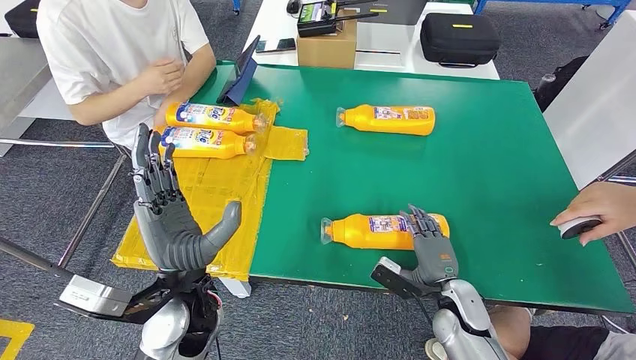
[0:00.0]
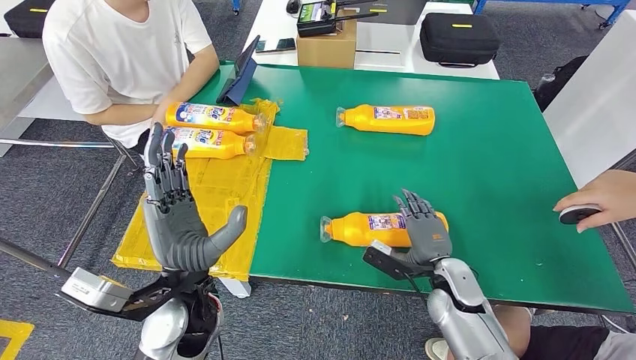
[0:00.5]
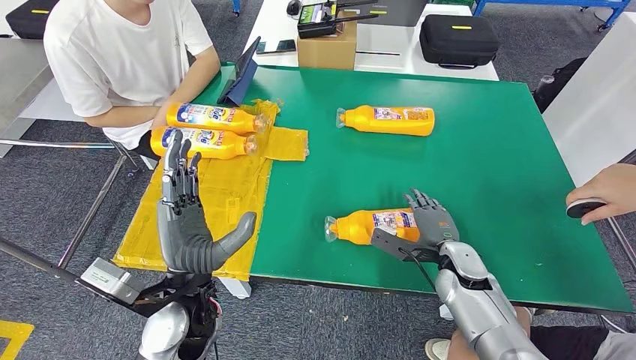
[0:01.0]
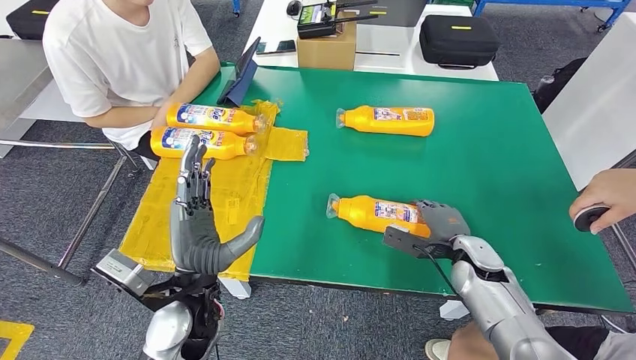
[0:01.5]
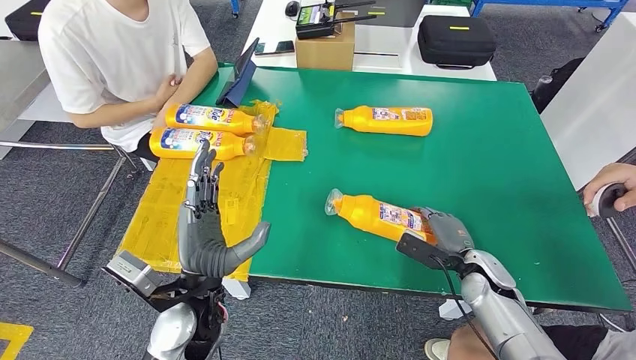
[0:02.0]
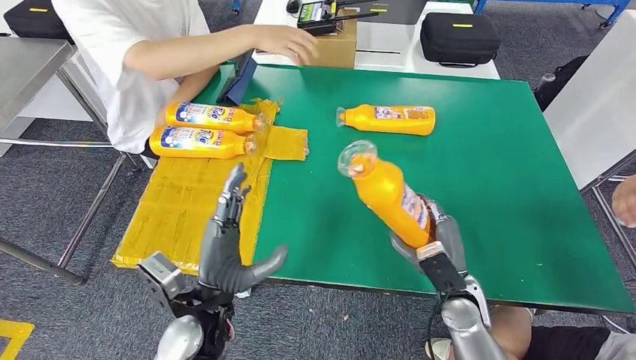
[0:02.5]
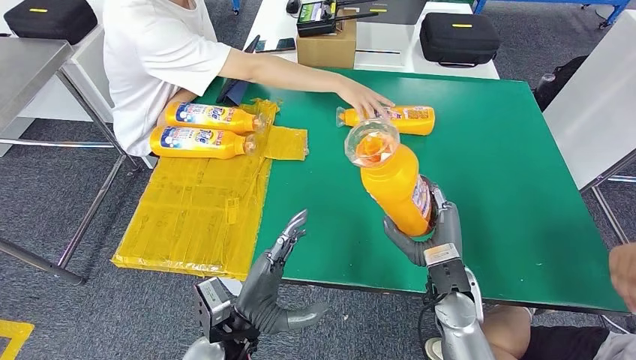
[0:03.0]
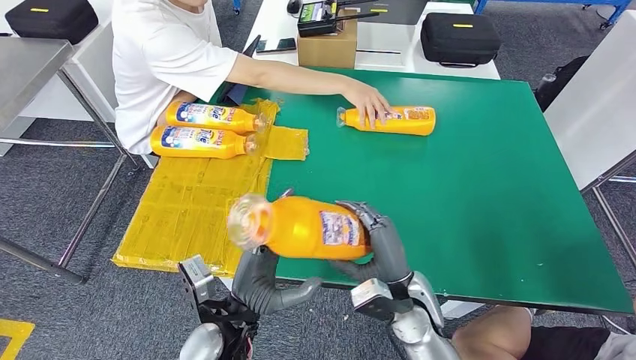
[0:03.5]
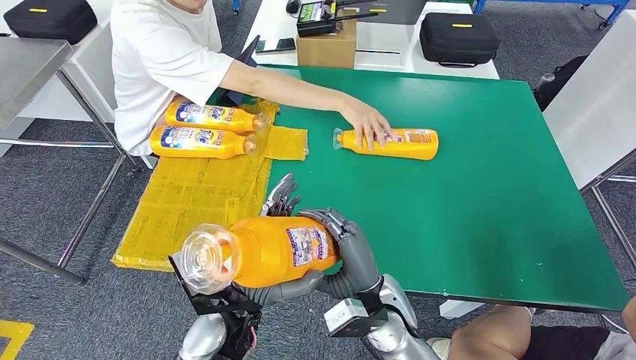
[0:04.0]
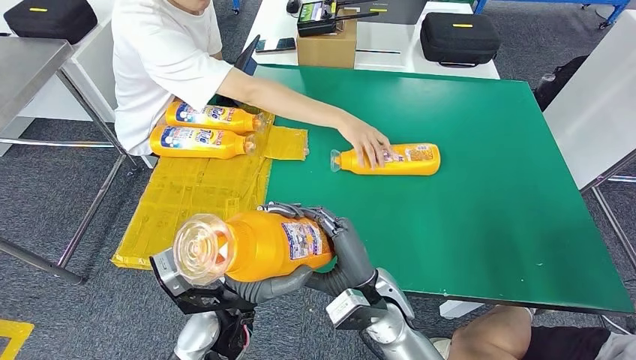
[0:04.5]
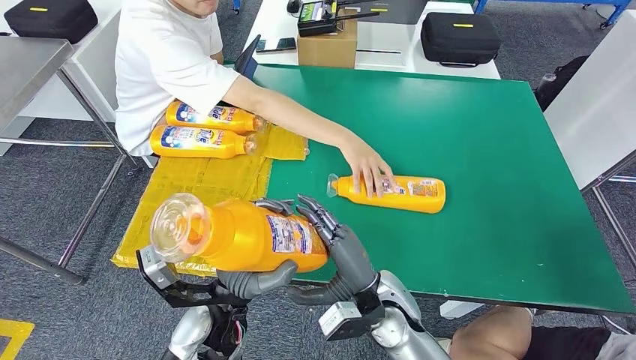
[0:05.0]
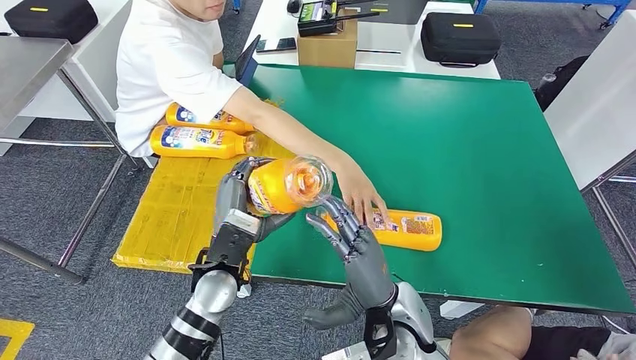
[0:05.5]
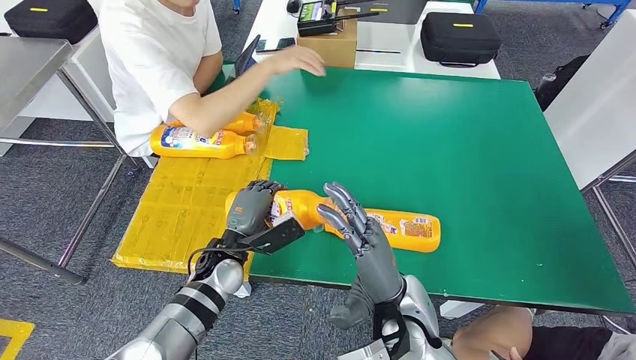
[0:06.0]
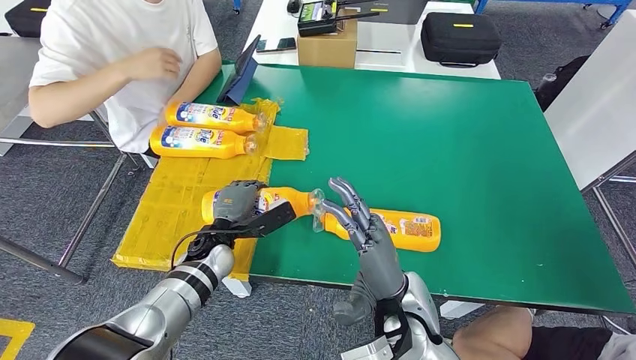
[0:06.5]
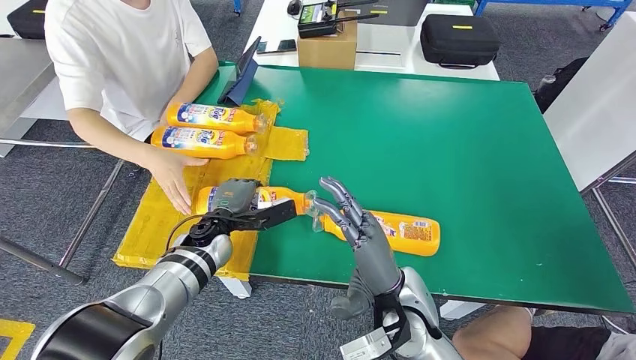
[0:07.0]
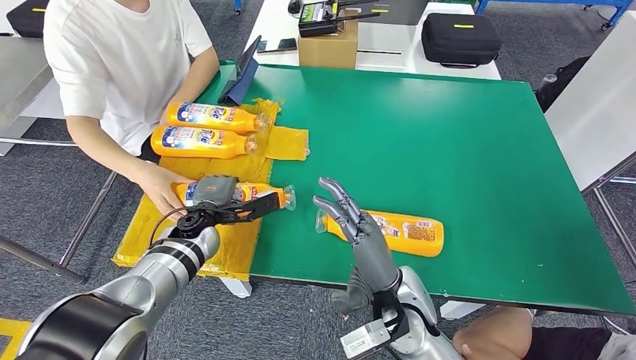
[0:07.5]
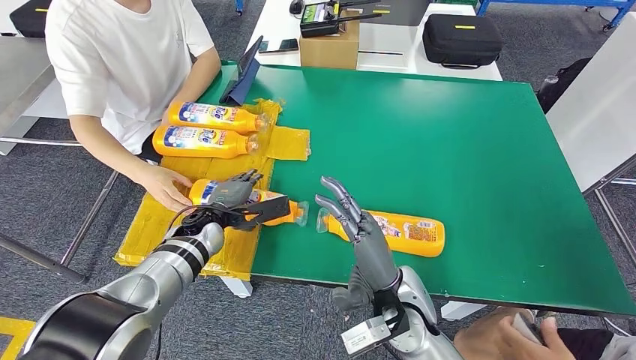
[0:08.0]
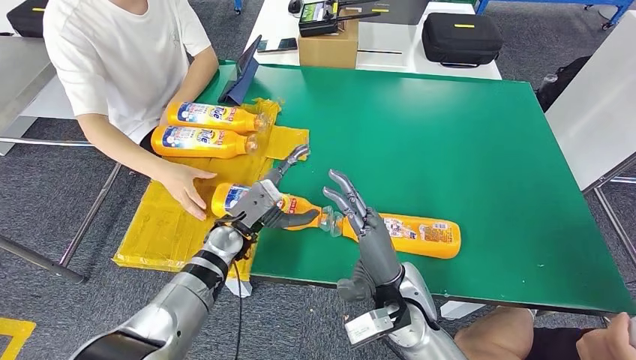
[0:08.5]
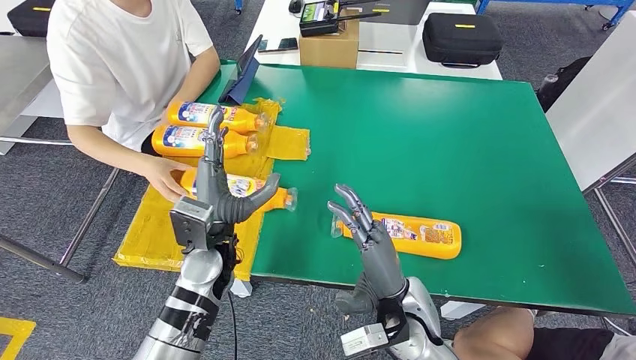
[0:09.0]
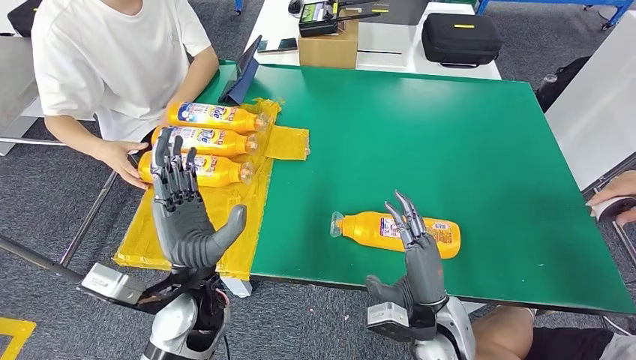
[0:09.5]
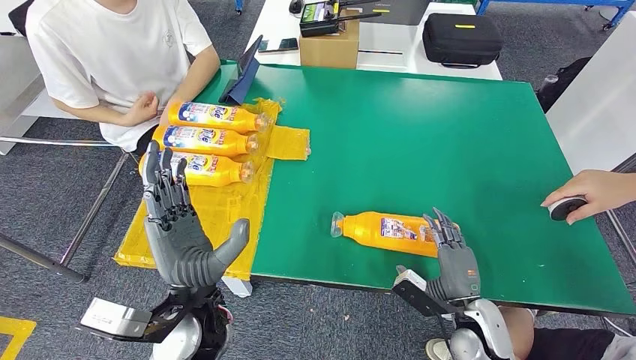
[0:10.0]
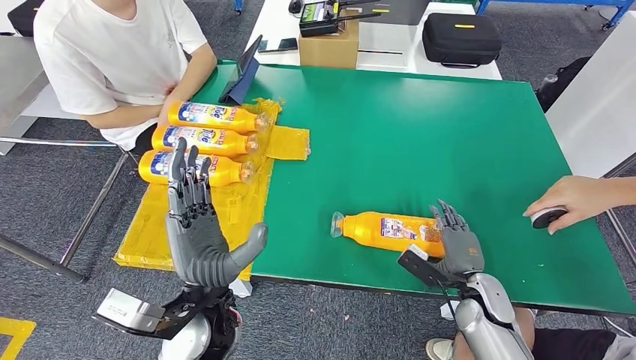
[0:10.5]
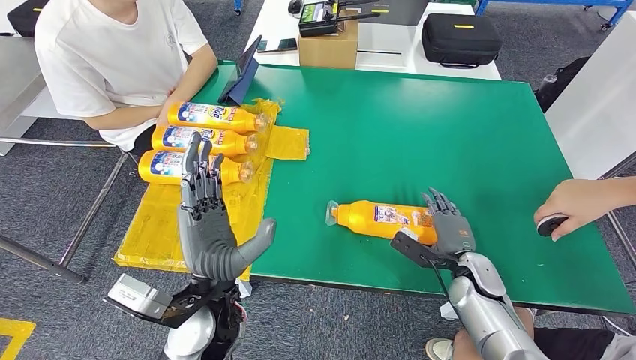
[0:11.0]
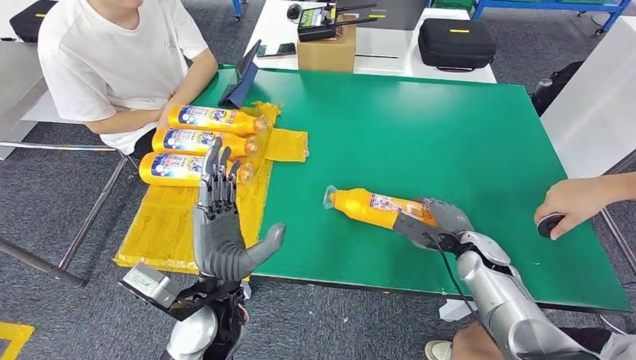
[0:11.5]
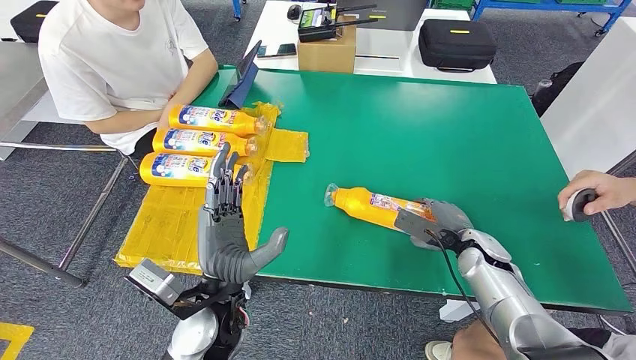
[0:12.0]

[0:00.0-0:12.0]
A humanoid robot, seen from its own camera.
Step, 0:00.0 to 0:03.0: Pick up the bottle from the table.
Step, 0:03.5 to 0:07.5: Flip the bottle to face forward.

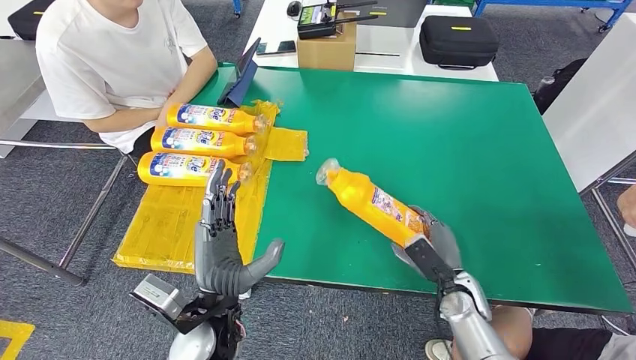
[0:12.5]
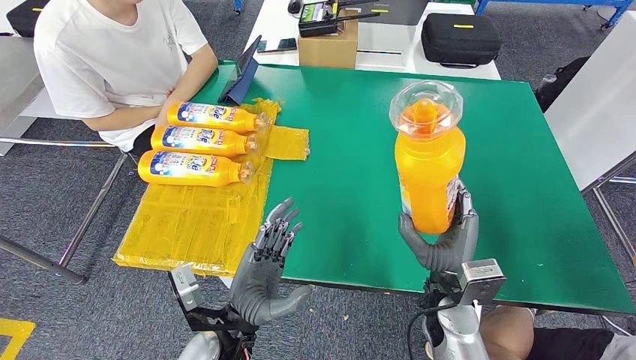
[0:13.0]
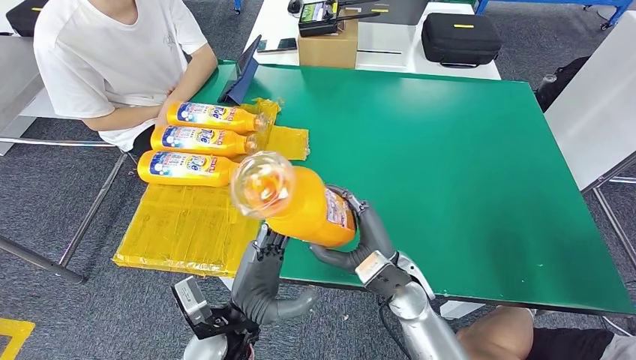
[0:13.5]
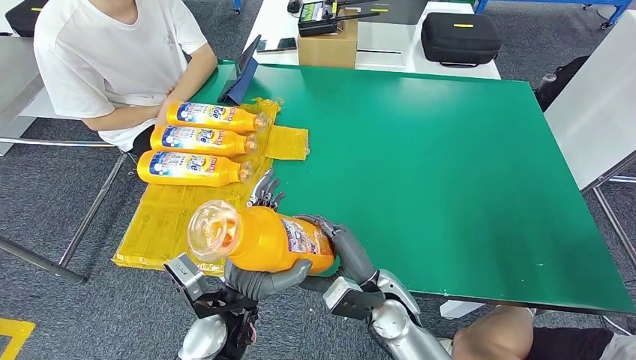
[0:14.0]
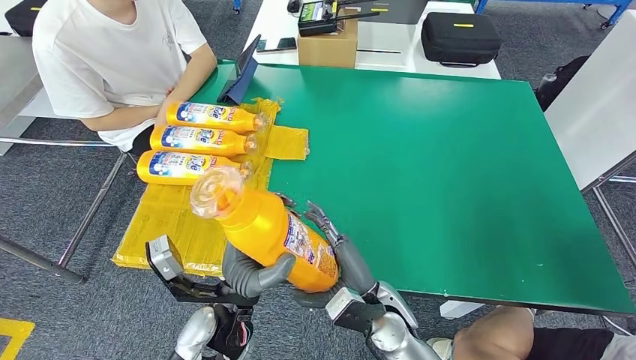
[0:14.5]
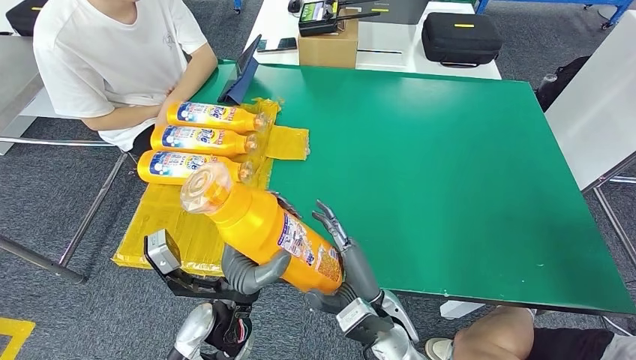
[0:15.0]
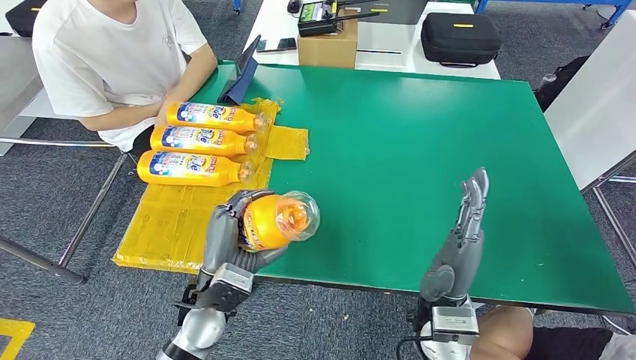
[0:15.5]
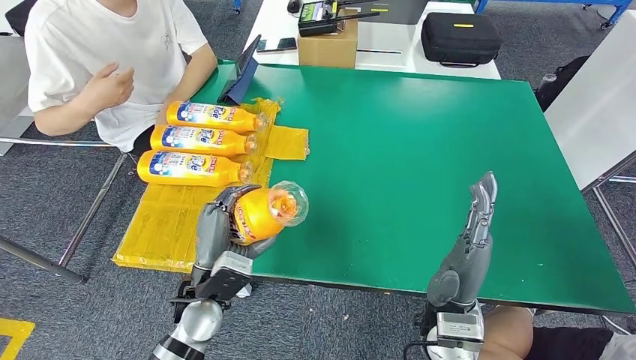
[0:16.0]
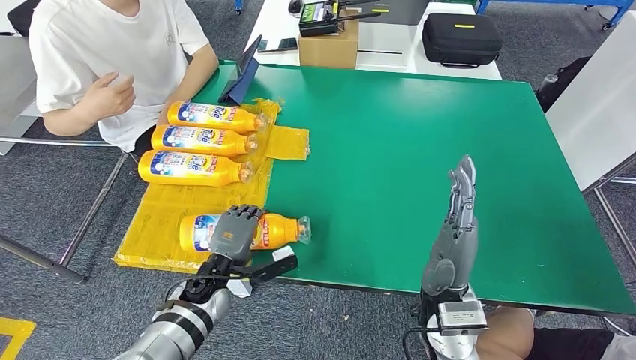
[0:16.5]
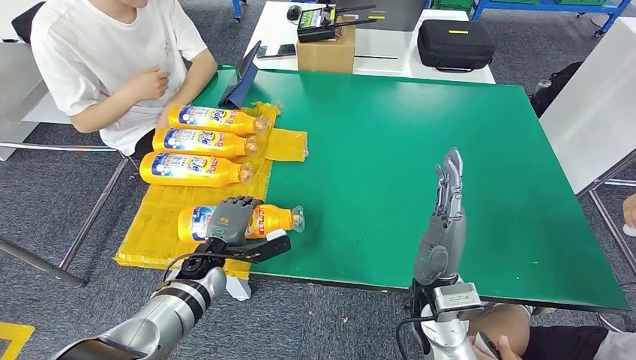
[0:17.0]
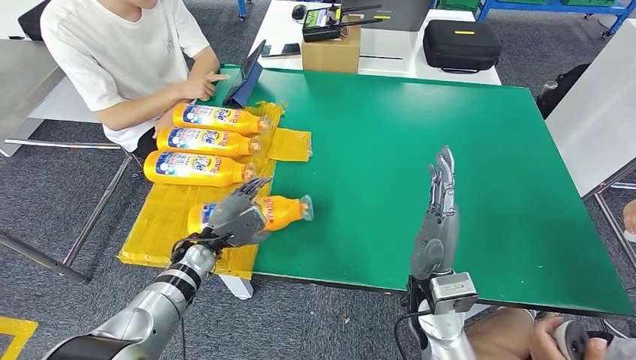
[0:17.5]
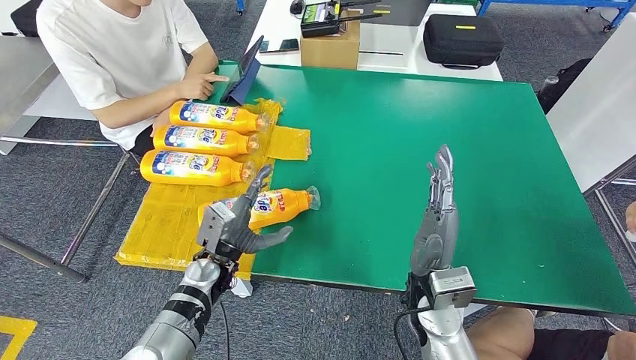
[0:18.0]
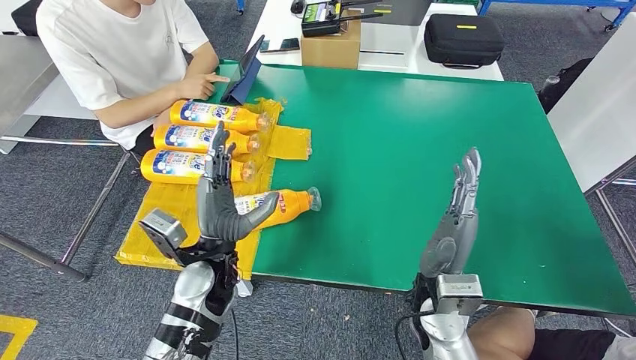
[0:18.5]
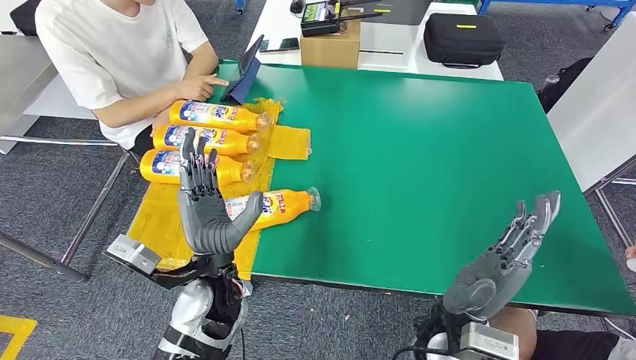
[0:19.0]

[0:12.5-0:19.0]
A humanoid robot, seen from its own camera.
Step, 0:14.5 to 0:18.5: Flip the bottle to face forward.

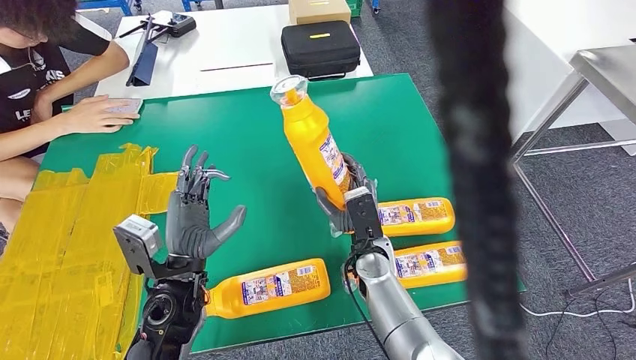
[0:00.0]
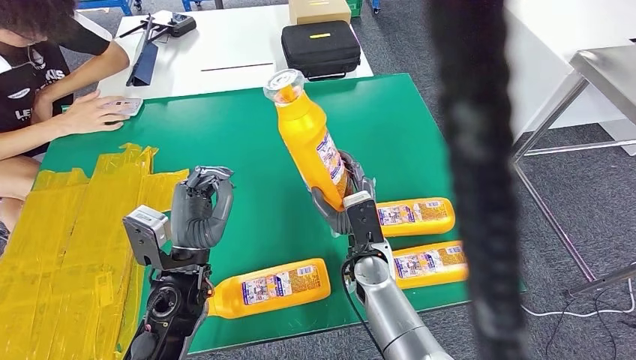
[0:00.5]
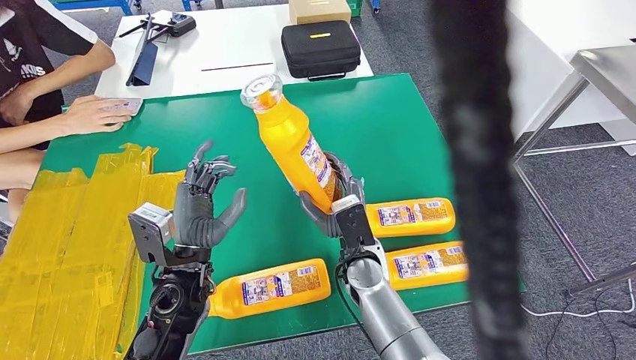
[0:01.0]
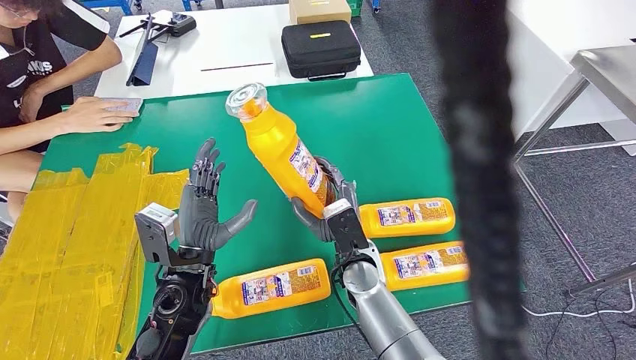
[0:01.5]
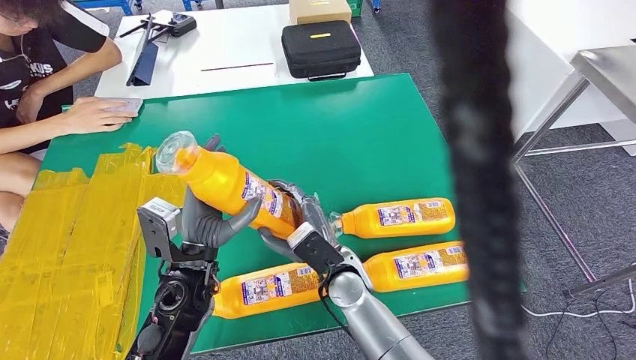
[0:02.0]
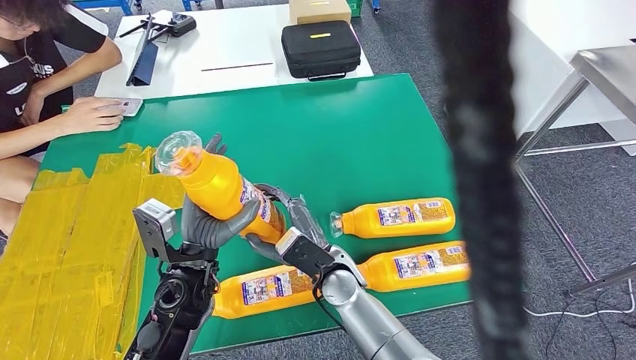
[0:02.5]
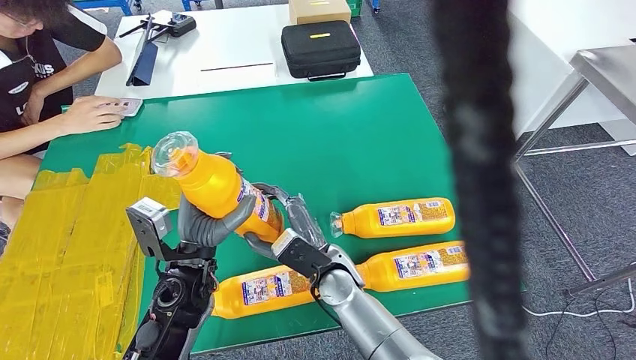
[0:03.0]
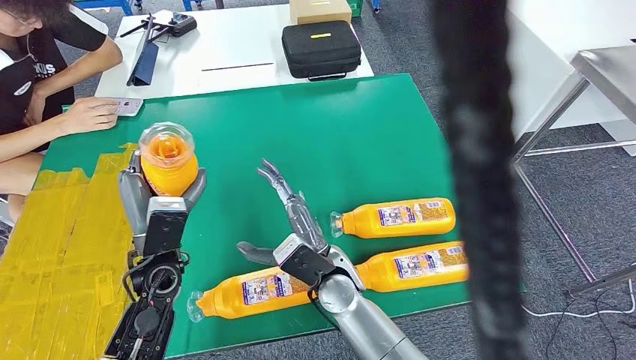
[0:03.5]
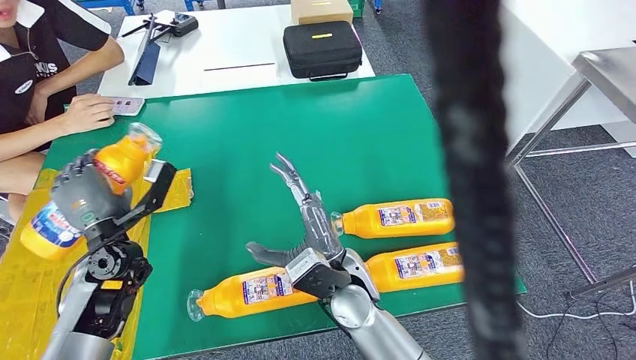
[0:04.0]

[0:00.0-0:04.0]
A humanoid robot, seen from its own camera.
0:00.0 to 0:02.0: The right hand goes approximately 5 cm to the left.
